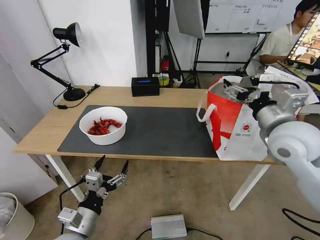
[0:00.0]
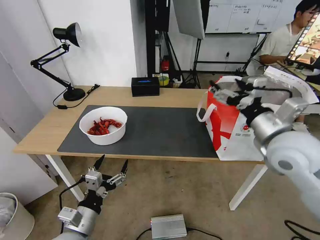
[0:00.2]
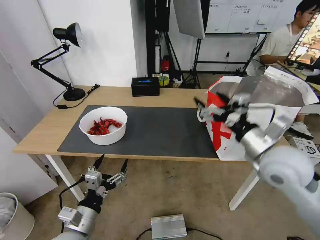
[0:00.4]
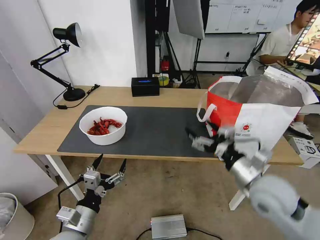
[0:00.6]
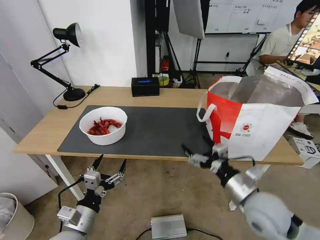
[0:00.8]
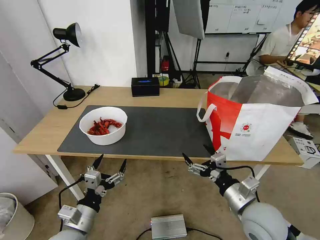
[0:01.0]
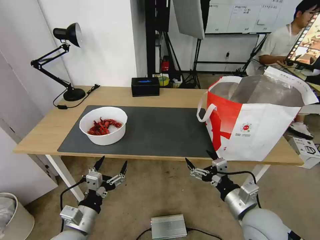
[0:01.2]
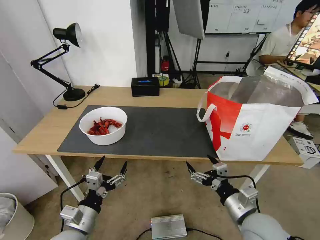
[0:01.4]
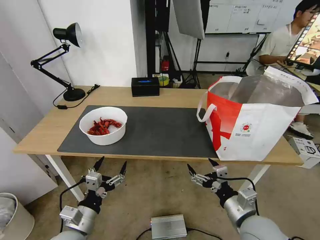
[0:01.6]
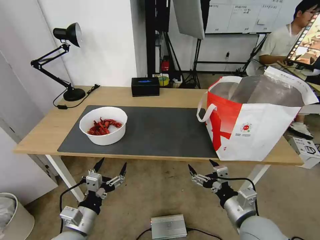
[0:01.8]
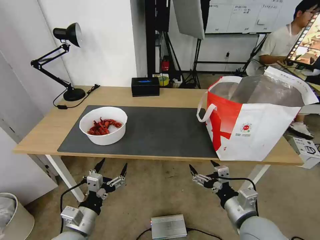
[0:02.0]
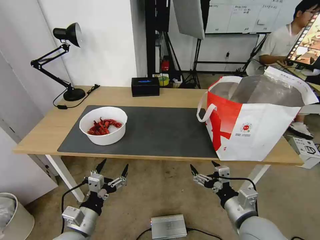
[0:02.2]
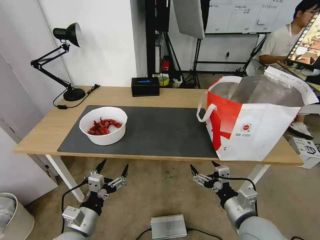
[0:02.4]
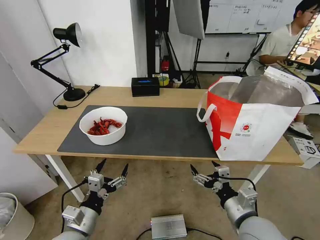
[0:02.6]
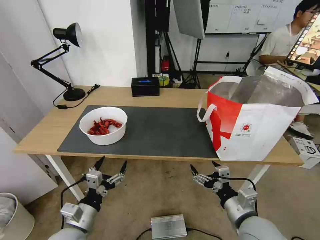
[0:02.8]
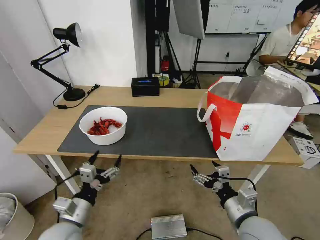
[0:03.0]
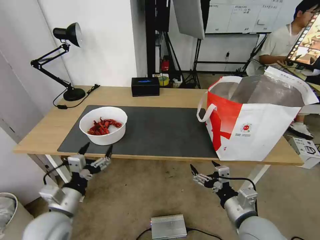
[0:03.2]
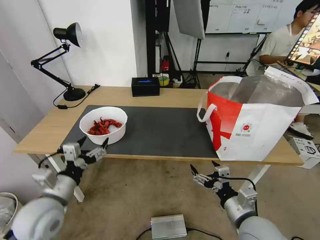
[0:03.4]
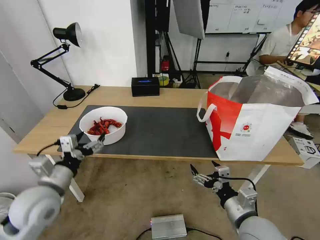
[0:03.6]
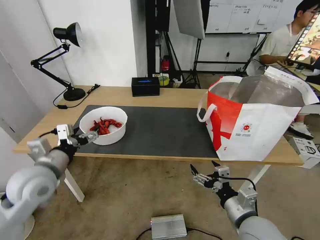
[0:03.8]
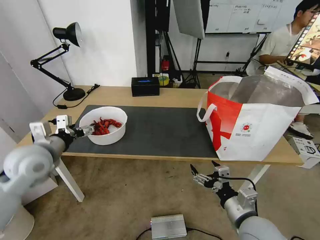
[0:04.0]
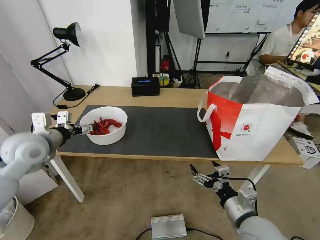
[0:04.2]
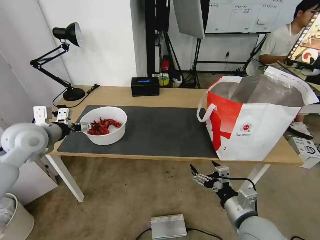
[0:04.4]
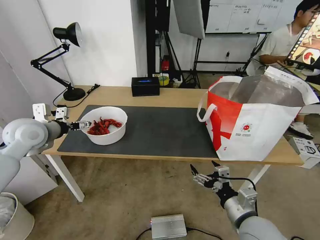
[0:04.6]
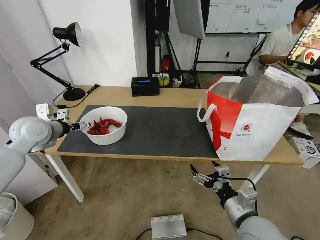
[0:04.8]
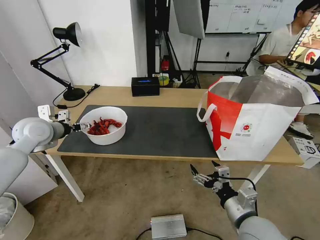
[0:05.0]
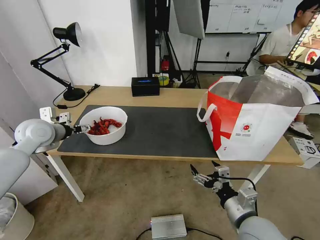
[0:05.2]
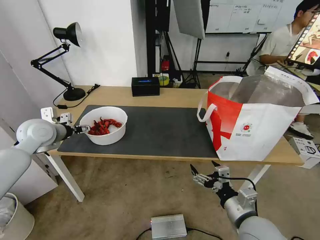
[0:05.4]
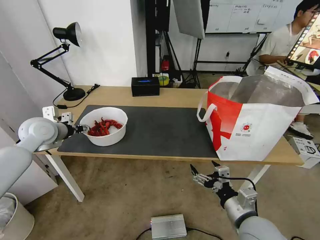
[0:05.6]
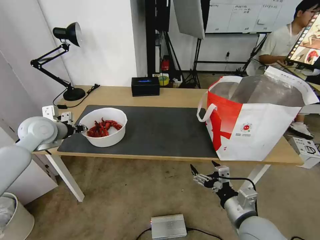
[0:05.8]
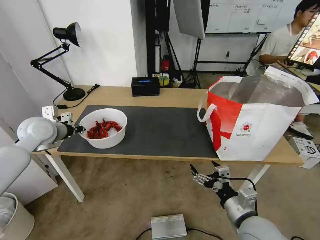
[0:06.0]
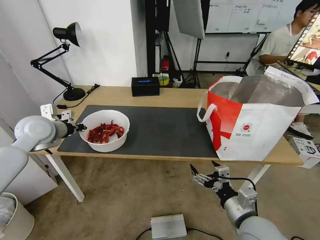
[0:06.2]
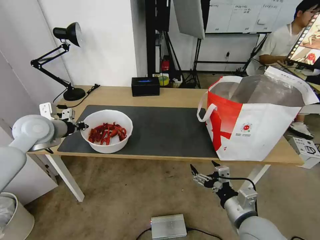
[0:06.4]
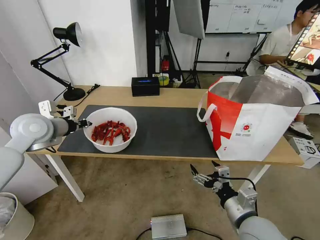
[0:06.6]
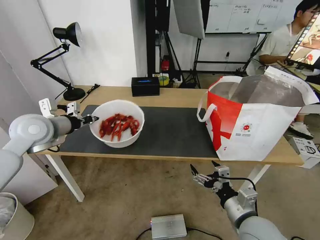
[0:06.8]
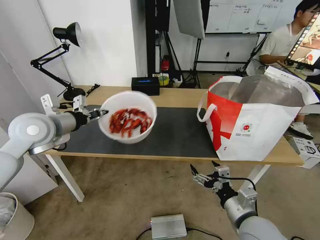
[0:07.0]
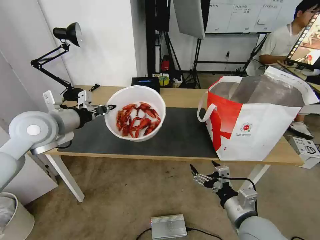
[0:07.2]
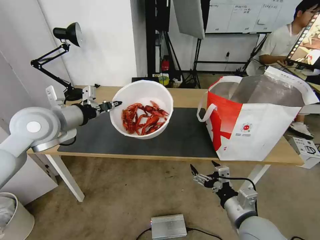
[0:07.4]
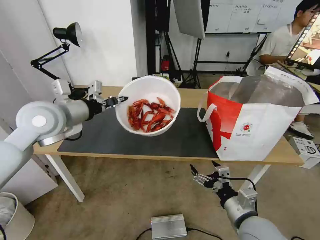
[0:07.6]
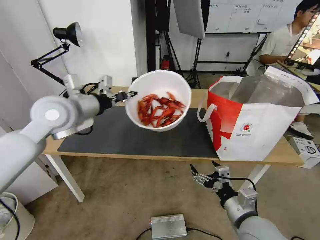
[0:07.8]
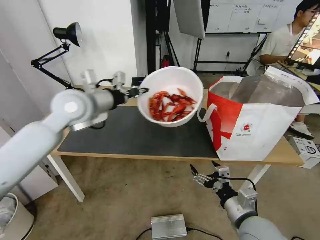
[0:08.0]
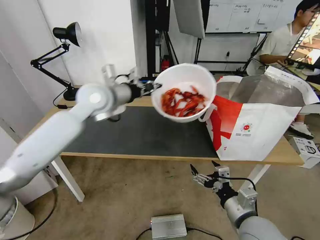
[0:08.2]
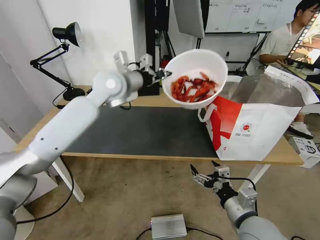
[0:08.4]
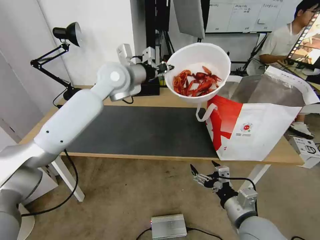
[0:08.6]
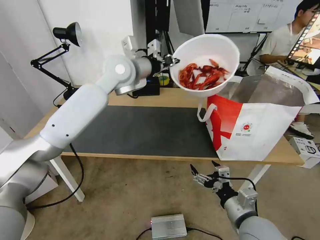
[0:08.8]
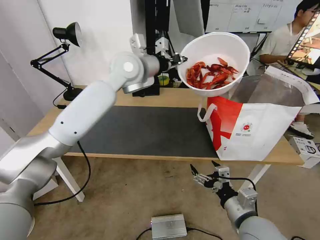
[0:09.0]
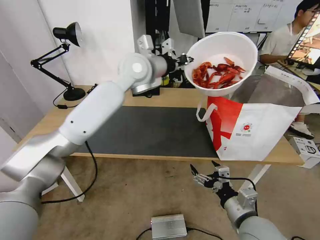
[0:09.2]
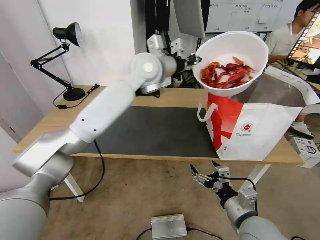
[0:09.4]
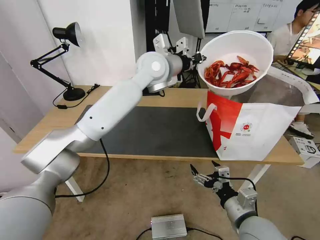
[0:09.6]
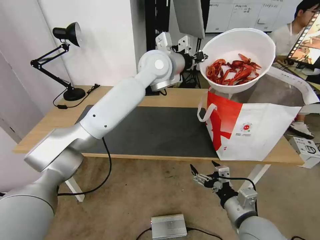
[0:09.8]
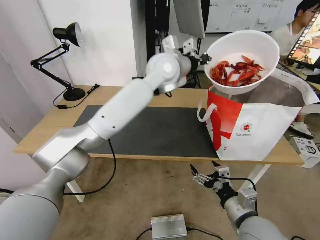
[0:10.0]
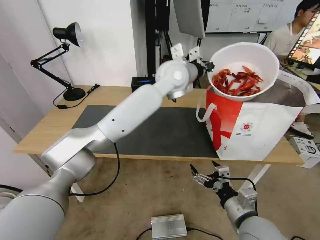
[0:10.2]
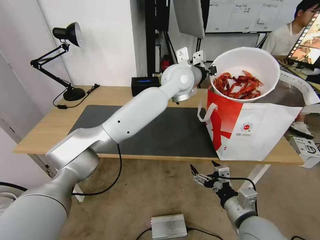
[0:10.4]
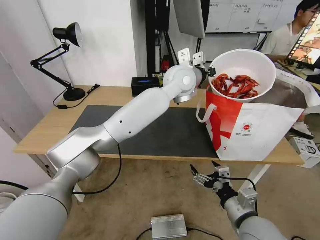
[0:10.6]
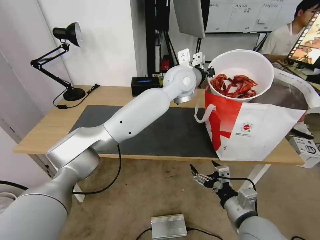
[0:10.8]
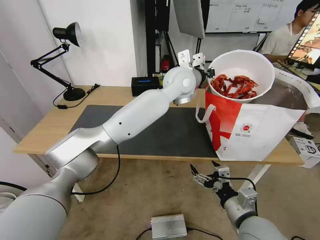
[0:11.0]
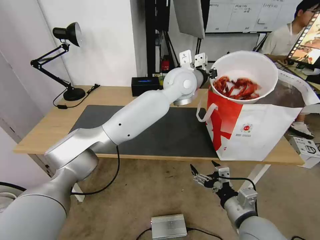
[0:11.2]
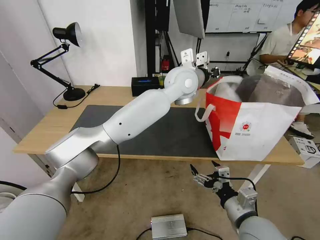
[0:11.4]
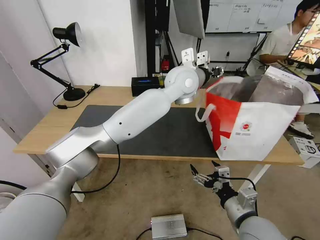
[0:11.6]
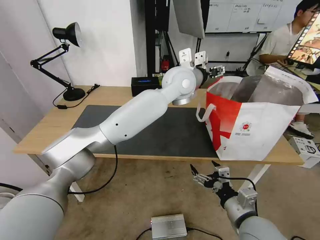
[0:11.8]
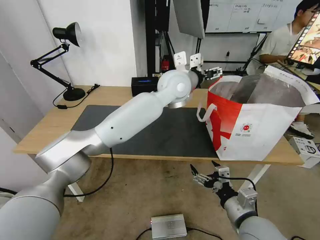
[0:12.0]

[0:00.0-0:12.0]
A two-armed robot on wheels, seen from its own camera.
Task of the whole recording: Pick up the trash from the table and place it into the takeout bag.
0.0 to 1.6 s: The right gripper shifts roughly 25 cm downward and backward.
1.6 to 3.0 s: The grippers stay close to where they were, moving slightly.
3.0 to 4.4 s: The left gripper shifts about 30 cm forward, upward and to the left.
4.4 to 6.0 s: The left gripper ends up some 5 cm from where it was, and closes up.
6.0 to 7.6 s: The left gripper travels to the right, upward and backward by some 15 cm.
7.6 to 9.0 s: The left gripper moves to the right and forward, approximately 25 cm.
9.0 to 10.4 s: The left gripper moves to the right, approximately 15 cm.
10.4 to 12.0 s: The left gripper opens its fingers.

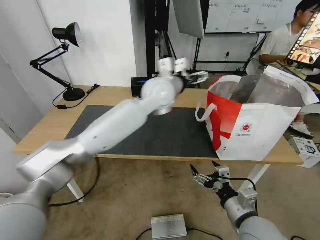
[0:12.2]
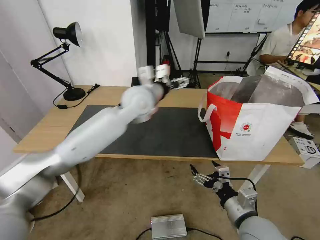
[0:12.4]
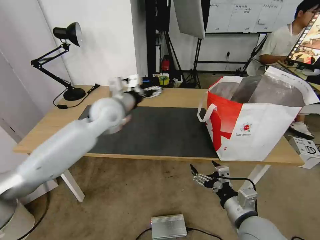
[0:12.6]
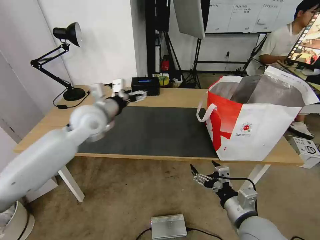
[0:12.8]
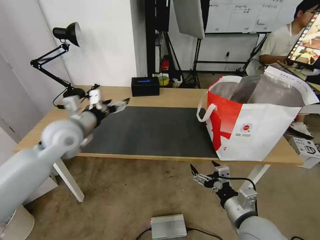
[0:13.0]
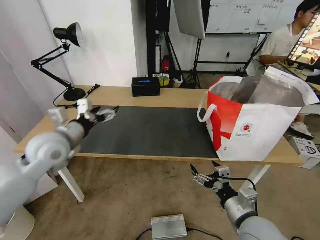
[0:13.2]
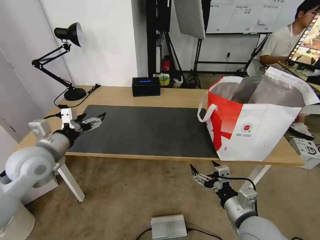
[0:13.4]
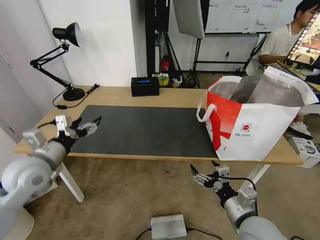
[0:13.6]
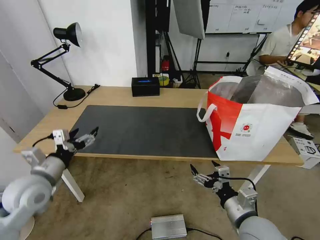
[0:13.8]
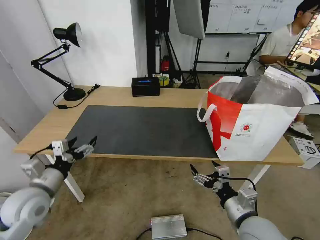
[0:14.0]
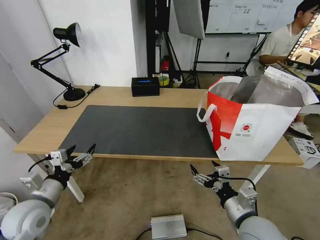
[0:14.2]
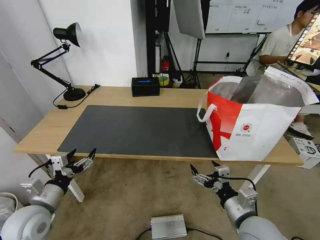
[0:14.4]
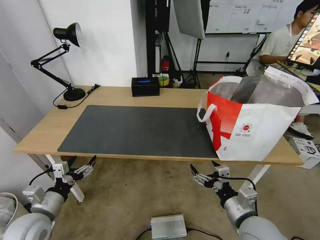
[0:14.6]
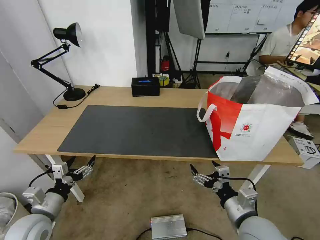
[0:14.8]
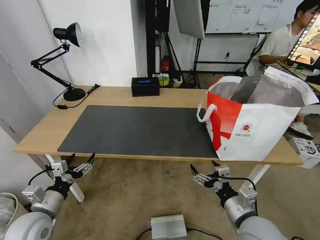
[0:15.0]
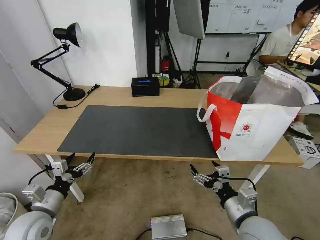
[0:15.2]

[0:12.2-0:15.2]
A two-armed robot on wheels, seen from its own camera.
Task of the whole recording: Pick up the trash from the table and place it into the takeout bag.
12.2 to 13.8 s: The left gripper goes approximately 40 cm to the left, backward and downward.
13.8 to 15.2 s: The left gripper shifts some 10 cm downward and backward.

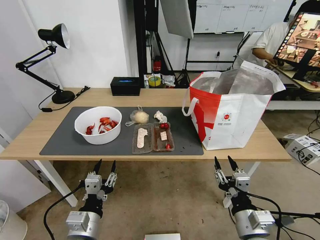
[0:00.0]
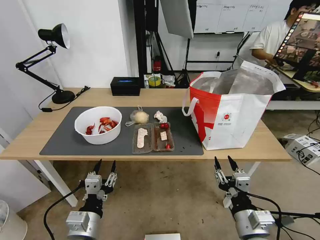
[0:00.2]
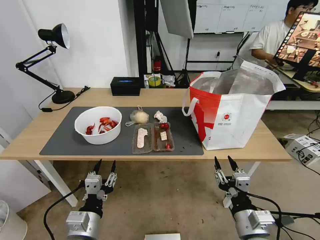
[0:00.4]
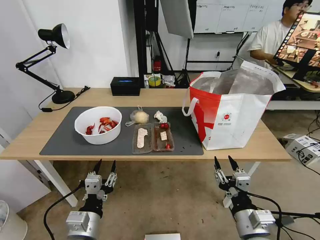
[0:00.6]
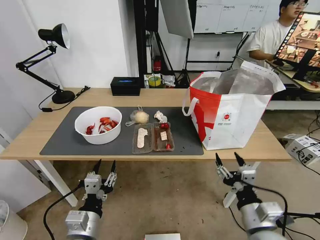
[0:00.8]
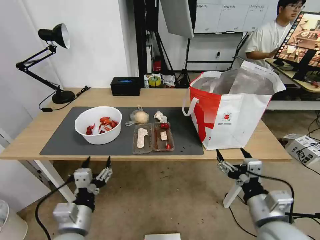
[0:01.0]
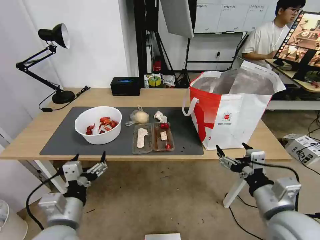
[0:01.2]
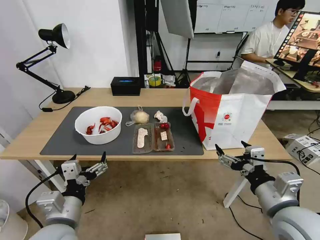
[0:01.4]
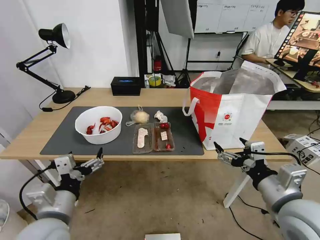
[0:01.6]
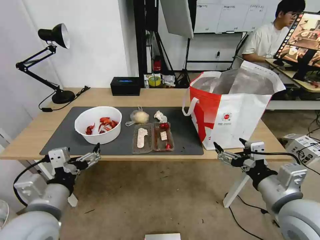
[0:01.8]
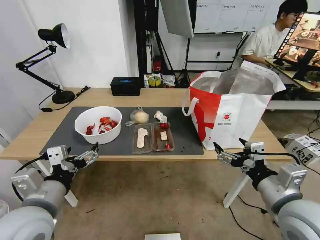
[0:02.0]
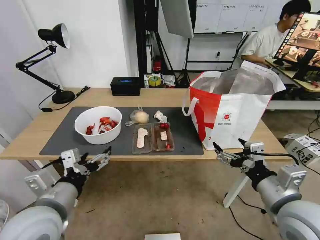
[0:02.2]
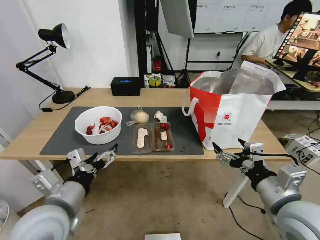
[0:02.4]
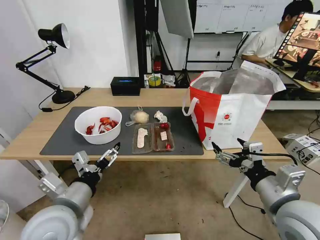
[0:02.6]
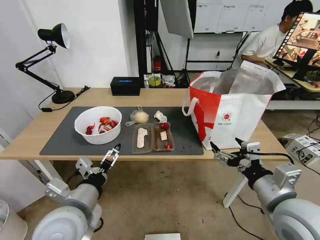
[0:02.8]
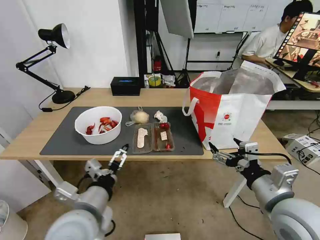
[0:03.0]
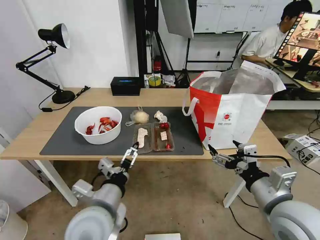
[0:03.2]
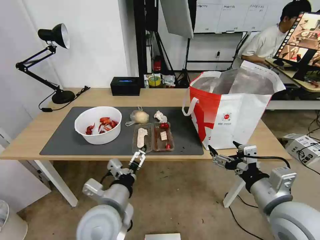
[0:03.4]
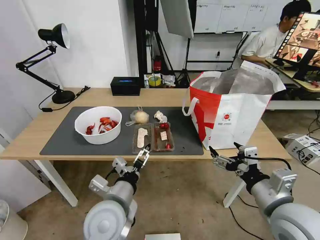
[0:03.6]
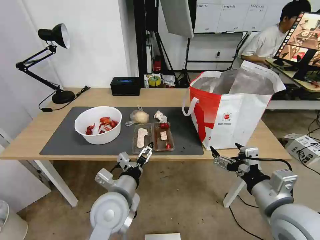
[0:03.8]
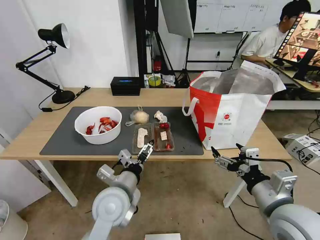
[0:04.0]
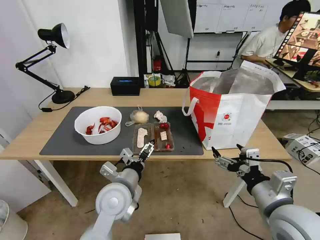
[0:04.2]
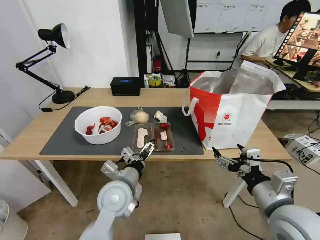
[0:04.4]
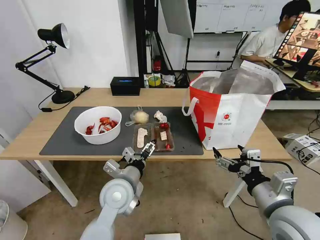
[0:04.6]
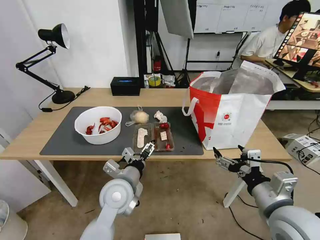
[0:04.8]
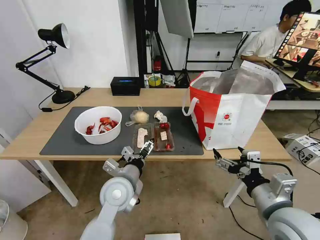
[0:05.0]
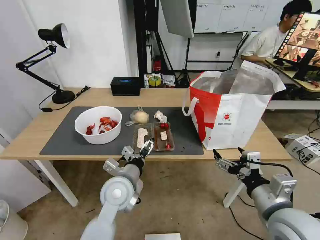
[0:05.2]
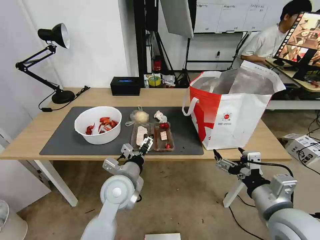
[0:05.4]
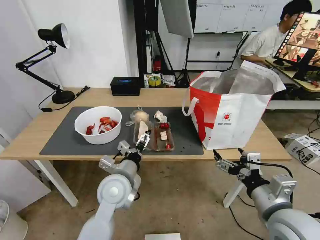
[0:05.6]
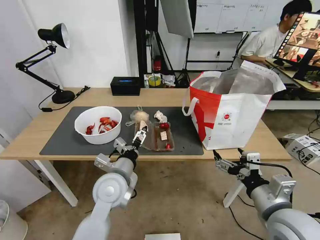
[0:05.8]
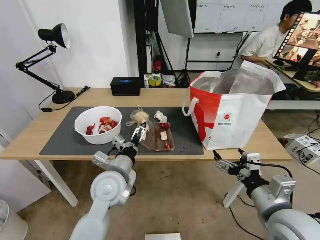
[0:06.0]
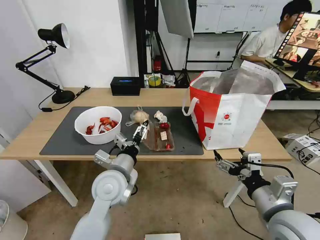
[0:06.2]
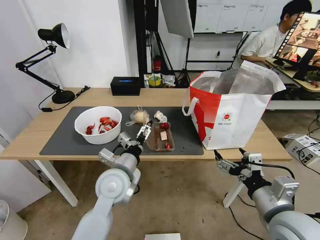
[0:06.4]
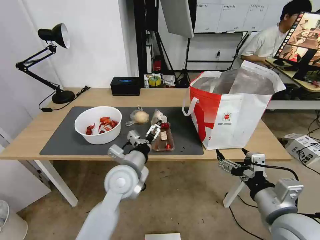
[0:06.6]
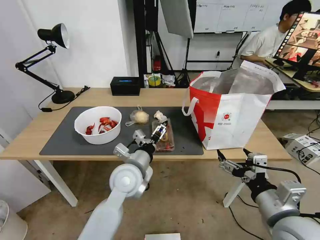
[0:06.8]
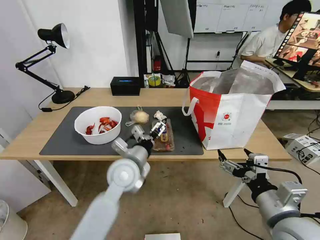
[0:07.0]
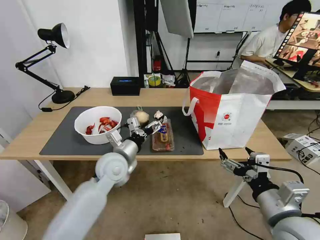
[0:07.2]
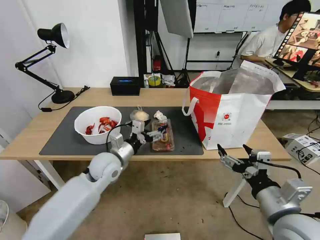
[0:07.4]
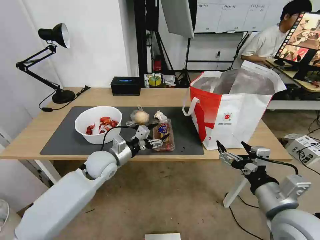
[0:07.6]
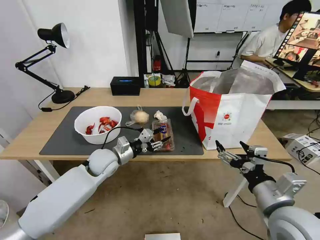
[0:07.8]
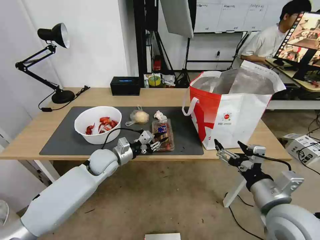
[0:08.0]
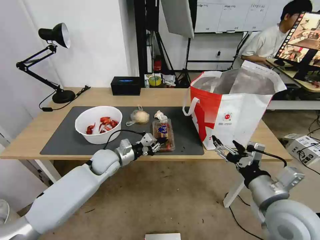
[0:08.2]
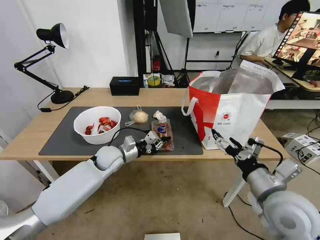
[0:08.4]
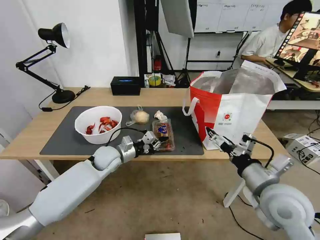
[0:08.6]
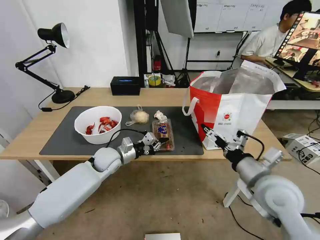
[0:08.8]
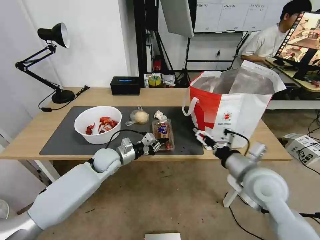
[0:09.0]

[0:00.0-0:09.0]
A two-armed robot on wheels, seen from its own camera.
Task of the whole recording: Pick up the trash from the table and place it into the takeout bag.
1.6 to 3.0 s: The left gripper moves to the right, approximately 5 cm.
3.0 to 4.4 s: The left gripper heads forward, downward and to the right, covering roughly 15 cm.
4.4 to 6.0 s: The grippers make only small movements.
6.0 to 7.6 s: The left gripper heads forward and to the left, covering roughly 10 cm.
7.6 to 9.0 s: The left gripper closes, while the right gripper goes roughly 10 cm forward.
